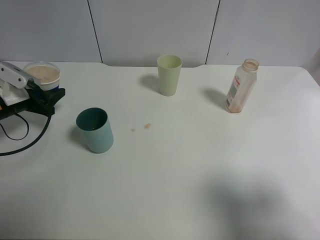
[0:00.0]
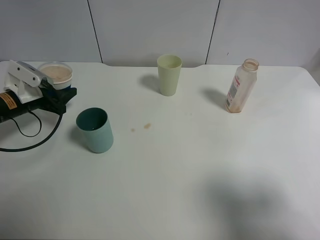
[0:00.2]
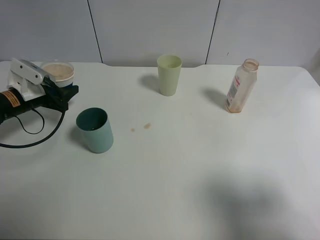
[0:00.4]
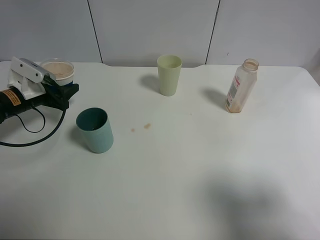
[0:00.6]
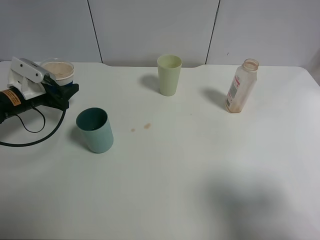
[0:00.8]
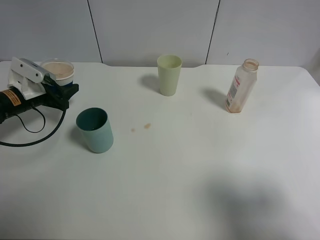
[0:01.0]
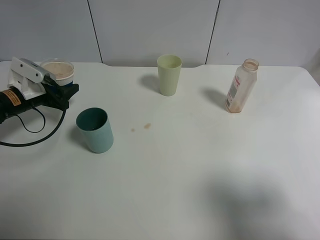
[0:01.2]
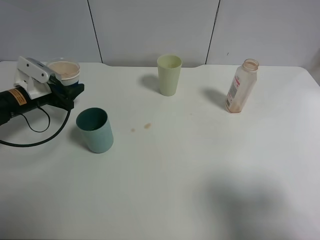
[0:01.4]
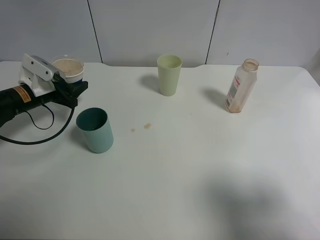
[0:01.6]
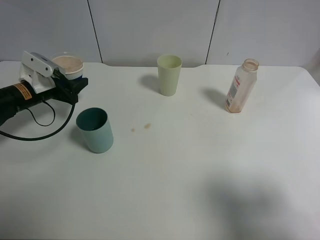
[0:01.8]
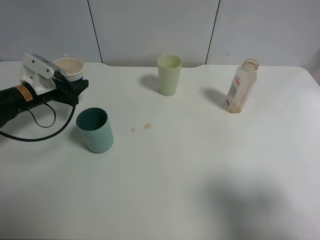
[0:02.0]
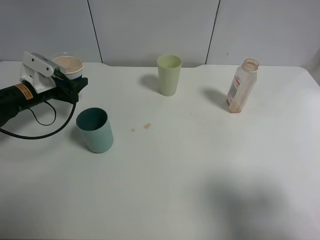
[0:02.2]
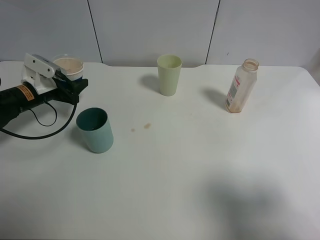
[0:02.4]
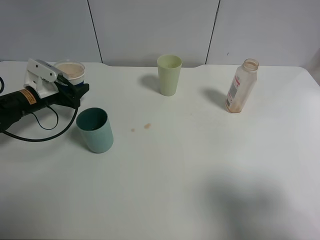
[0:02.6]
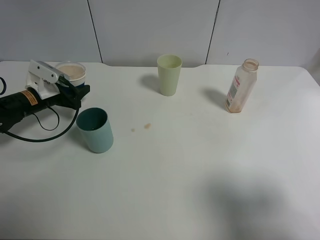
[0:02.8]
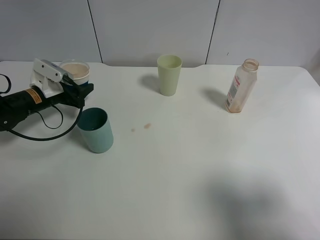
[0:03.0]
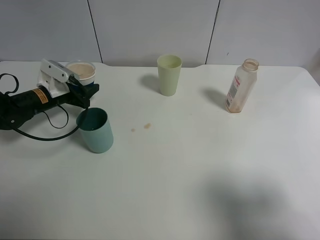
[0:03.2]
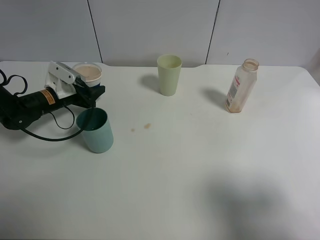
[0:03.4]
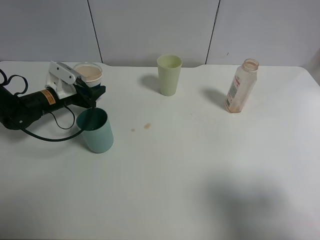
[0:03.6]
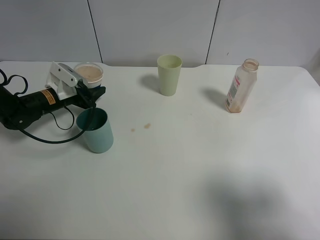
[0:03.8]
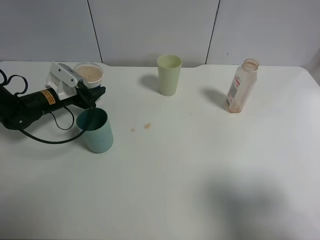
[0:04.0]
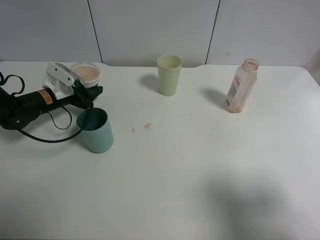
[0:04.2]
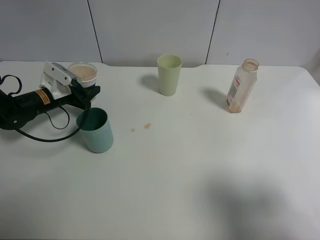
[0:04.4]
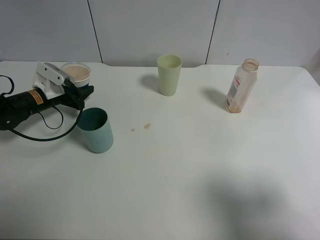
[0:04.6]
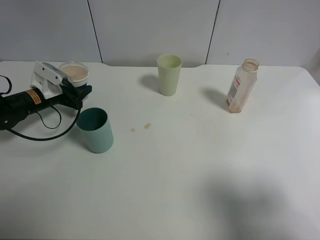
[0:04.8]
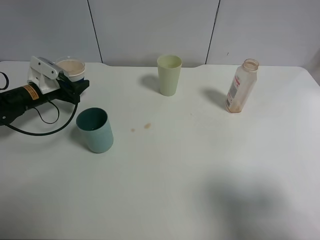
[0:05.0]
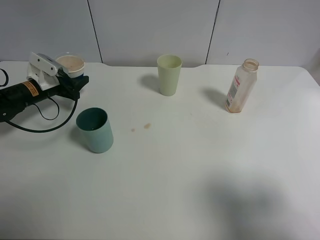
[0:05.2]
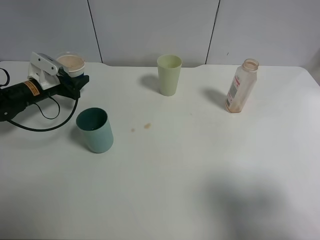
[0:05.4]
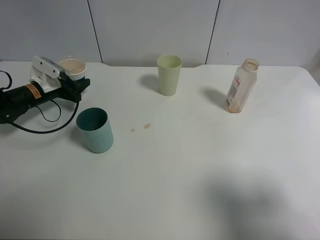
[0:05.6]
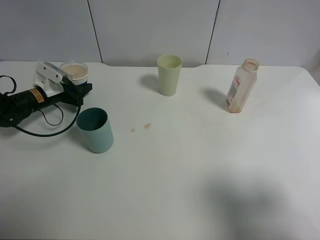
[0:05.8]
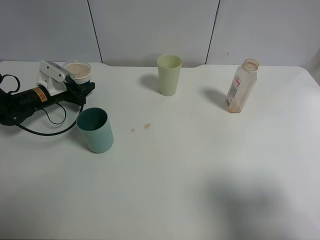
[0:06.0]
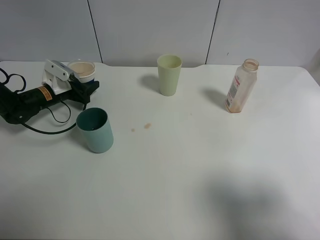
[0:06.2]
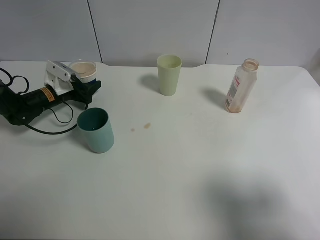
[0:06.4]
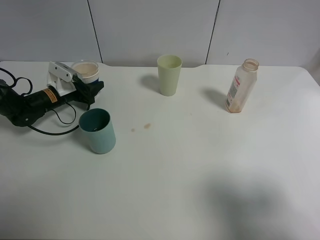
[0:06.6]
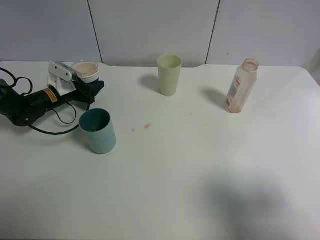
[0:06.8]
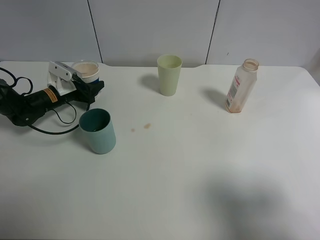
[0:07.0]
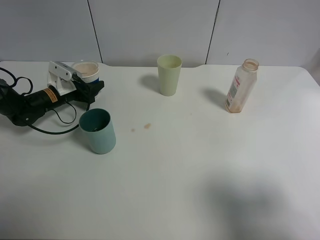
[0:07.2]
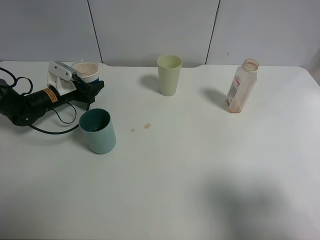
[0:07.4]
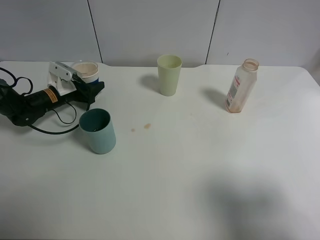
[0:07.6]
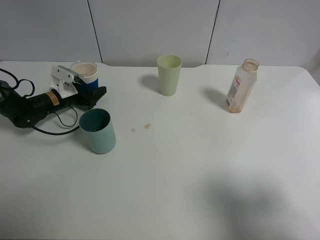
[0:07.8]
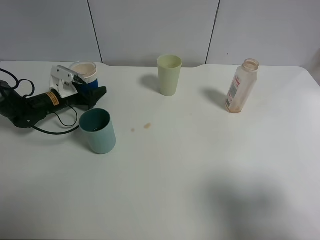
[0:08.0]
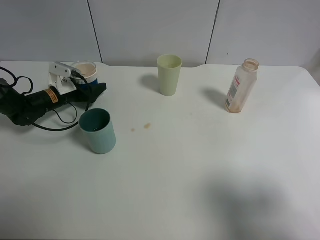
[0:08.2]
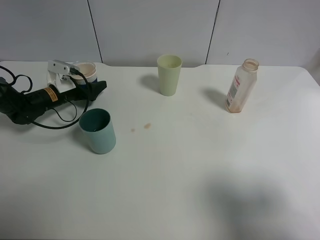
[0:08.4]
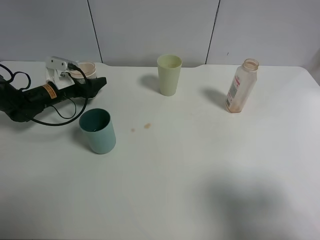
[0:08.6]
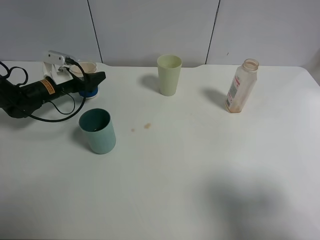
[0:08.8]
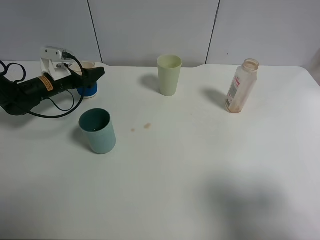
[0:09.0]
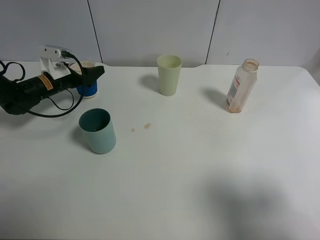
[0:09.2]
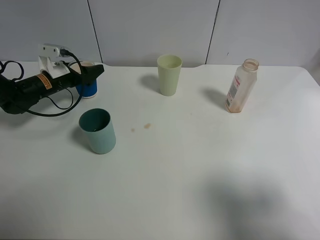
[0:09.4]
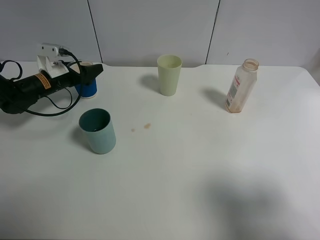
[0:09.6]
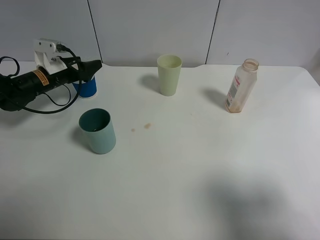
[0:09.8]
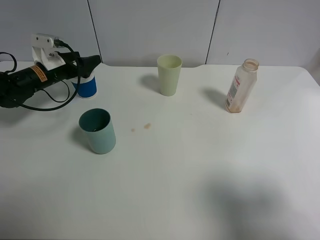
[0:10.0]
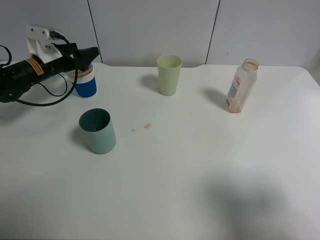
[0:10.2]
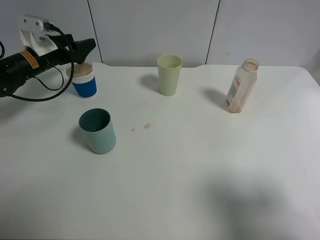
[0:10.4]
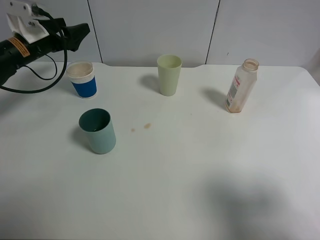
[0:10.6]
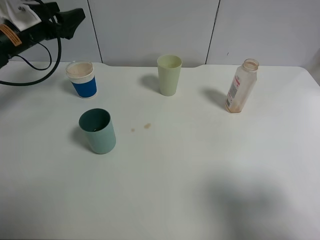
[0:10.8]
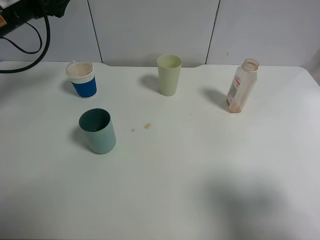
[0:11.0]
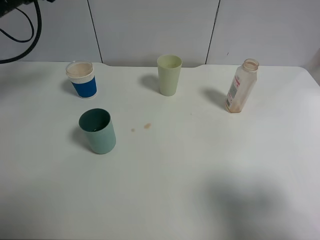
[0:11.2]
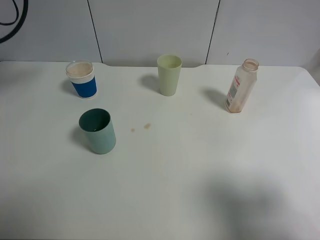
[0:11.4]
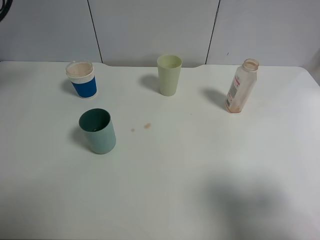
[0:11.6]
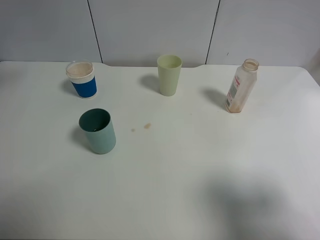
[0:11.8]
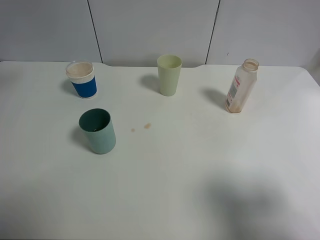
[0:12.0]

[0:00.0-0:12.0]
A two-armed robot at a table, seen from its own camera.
Task of the whole recording: use a clamp to hold the bottle of the drink, pour the beverage into a random cup, then clamp the cup containing the drink and pour the drink into another random cup.
Step, 0:00.0 to 0:09.6: Place the paper cup on the table with left gripper.
0:00.0 to 0:01.6: The left gripper shifts by some 5 cm.
0:01.6 to 0:04.4: The grippers move only a little.
0:04.4 to 0:07.6: The grippers make only small movements.
0:07.6 to 0:09.0: The left gripper opens up.
0:09.0 to 0:10.4: The left gripper shifts some 5 cm upward.
0:10.4 to 0:12.0: The left gripper heads upward and backward, covering about 25 cm.

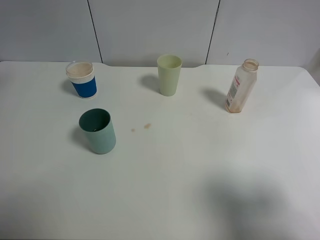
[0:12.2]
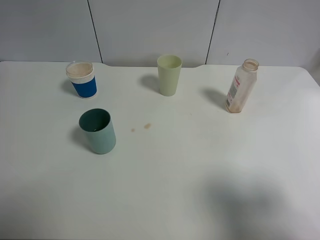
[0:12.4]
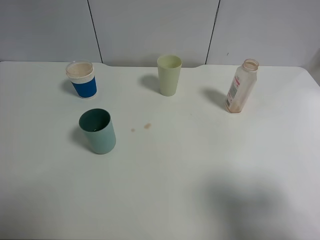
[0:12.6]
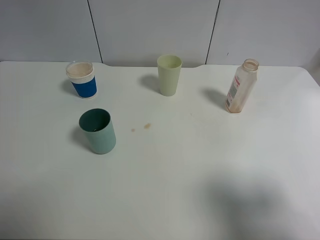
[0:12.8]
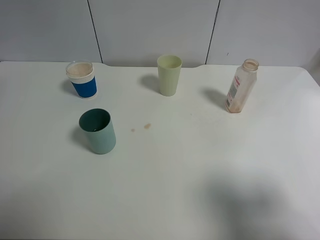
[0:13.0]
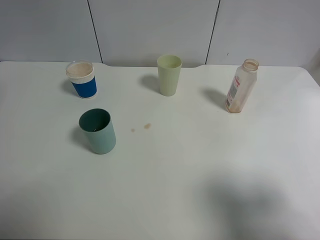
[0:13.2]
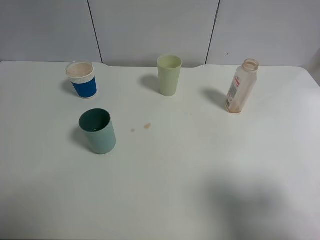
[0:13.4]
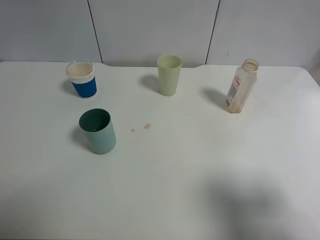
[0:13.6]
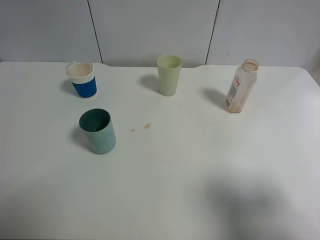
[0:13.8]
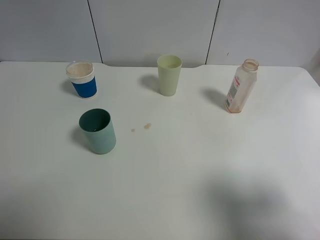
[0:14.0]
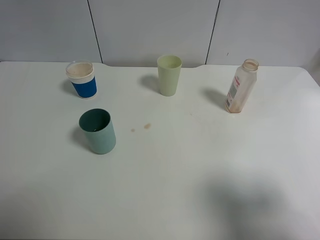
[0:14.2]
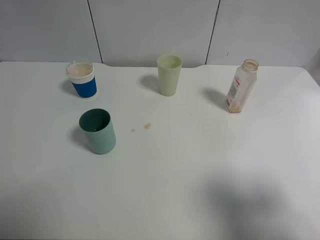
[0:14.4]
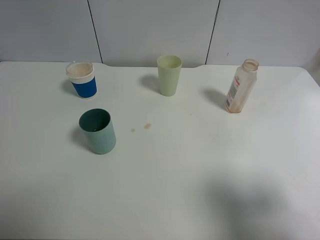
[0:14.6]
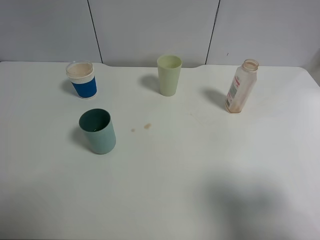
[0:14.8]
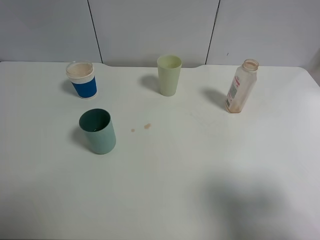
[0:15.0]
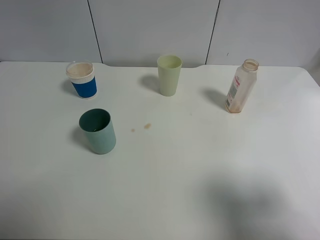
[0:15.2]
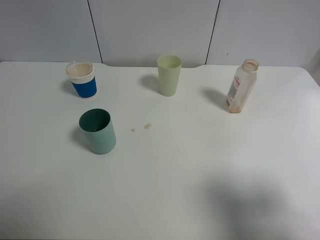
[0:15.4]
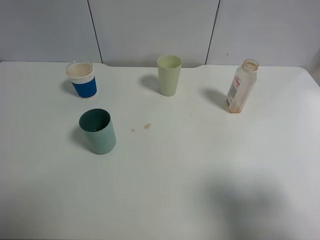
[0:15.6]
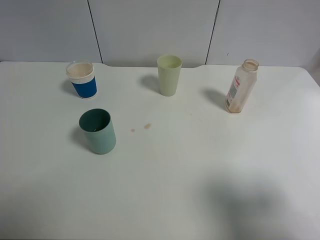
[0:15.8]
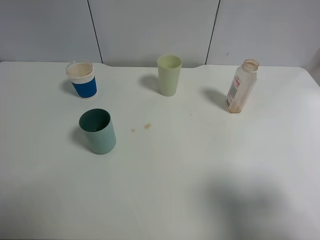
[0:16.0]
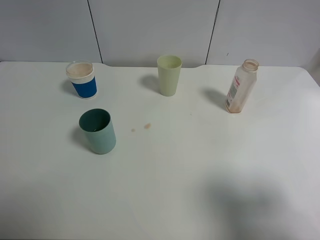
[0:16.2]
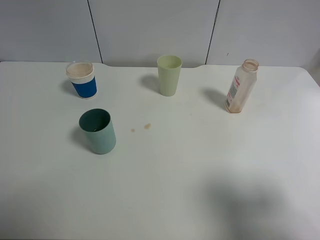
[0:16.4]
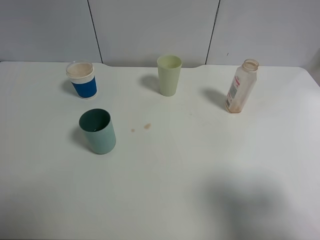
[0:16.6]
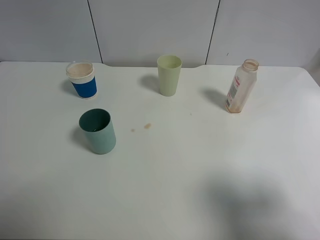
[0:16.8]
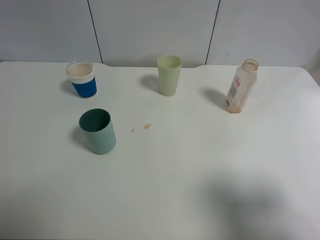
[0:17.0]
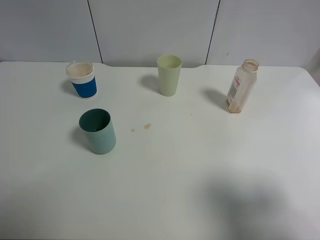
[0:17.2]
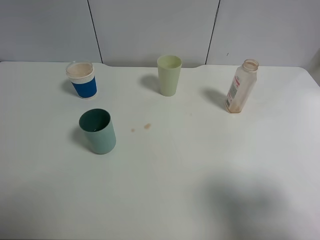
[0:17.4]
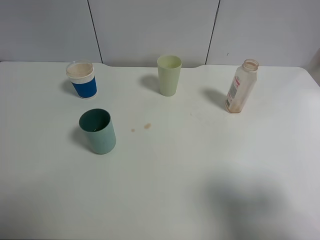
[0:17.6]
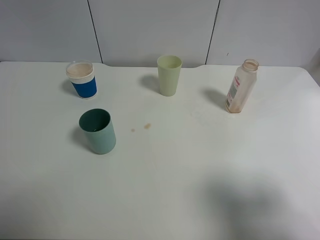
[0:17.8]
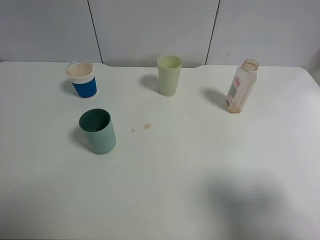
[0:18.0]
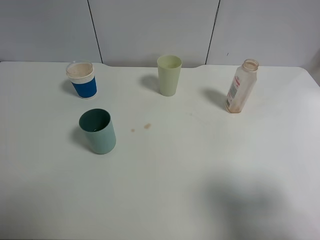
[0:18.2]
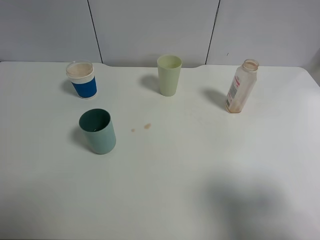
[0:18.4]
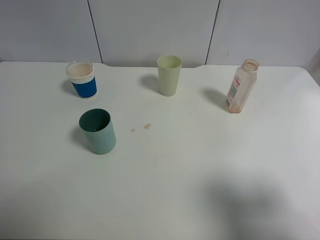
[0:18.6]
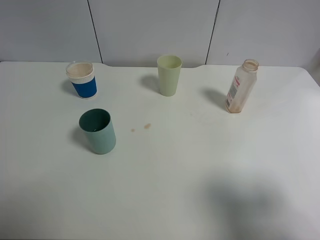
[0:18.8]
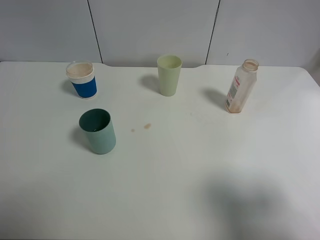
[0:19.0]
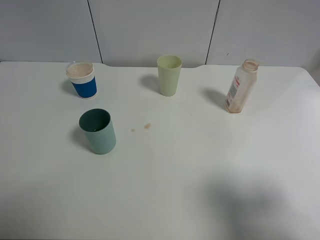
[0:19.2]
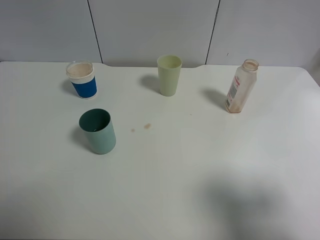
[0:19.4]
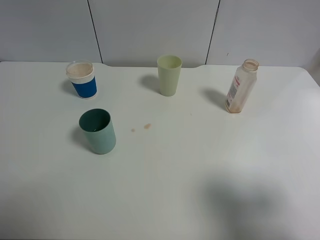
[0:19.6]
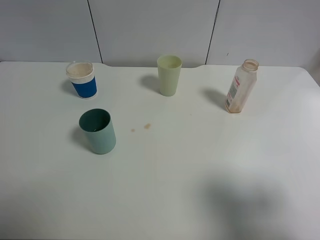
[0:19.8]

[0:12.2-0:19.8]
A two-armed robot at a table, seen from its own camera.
Task of the whole recording: use a clamp to hold the bottle of the drink, pour the beverage into a random cup, then clamp the cup containing the drink and pour the drink into another random cup.
0:16.8 to 0:19.8: Both grippers stay put.
